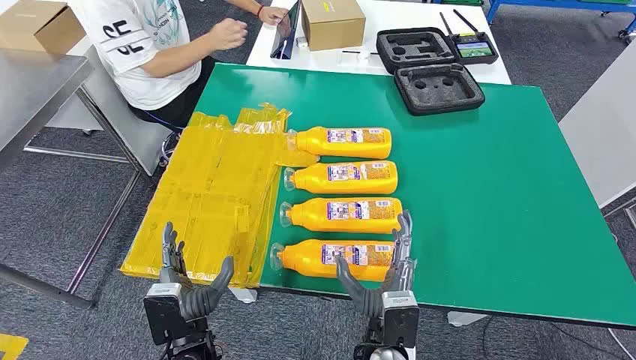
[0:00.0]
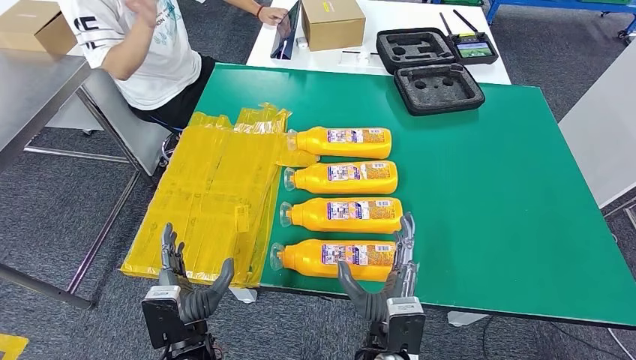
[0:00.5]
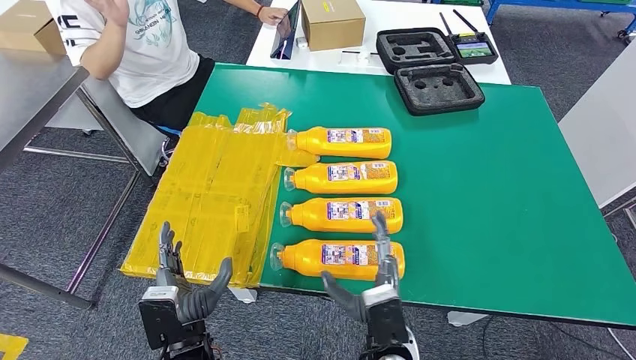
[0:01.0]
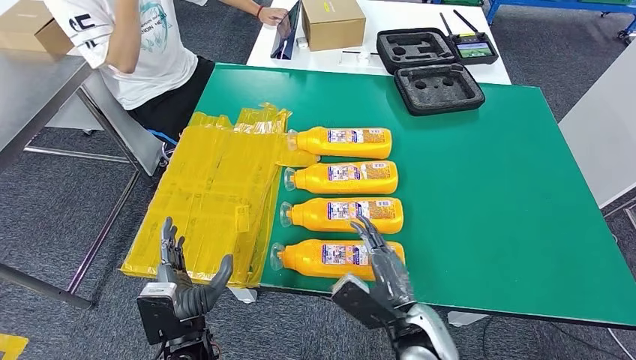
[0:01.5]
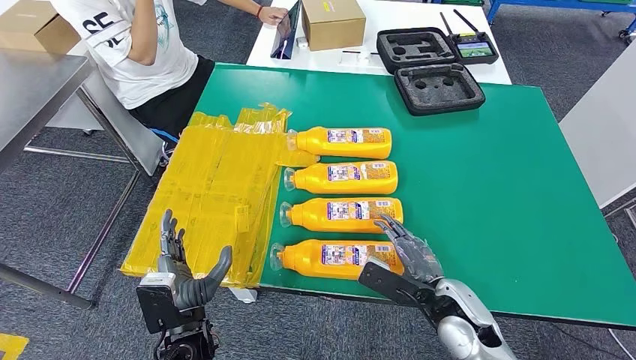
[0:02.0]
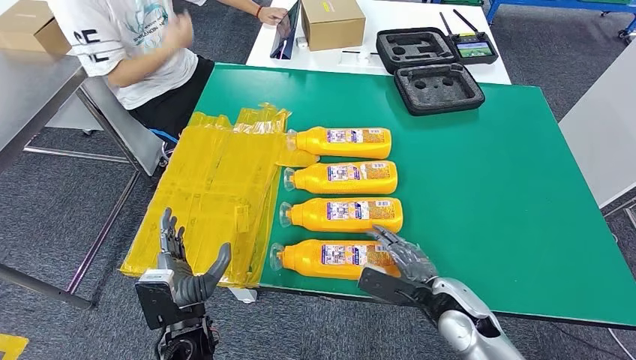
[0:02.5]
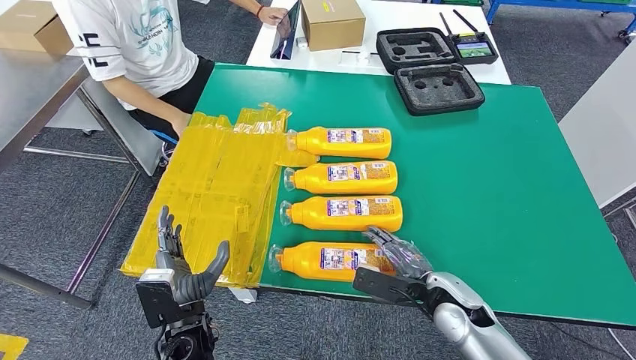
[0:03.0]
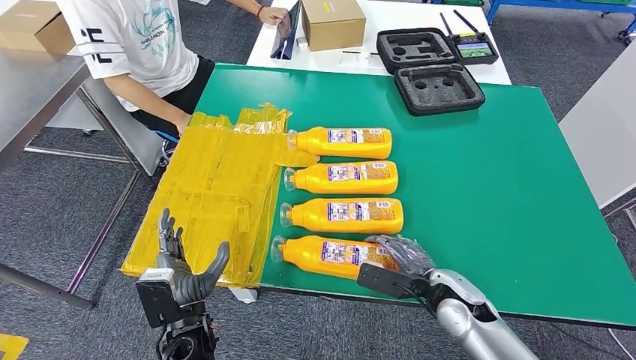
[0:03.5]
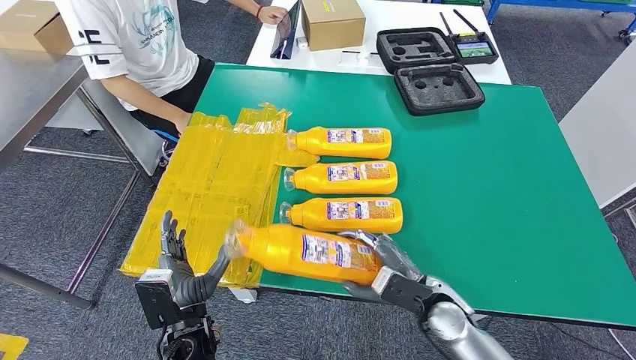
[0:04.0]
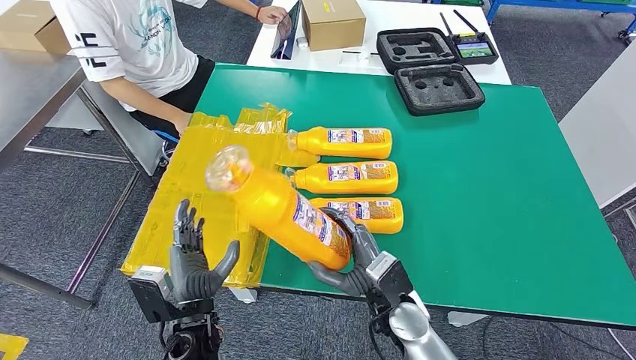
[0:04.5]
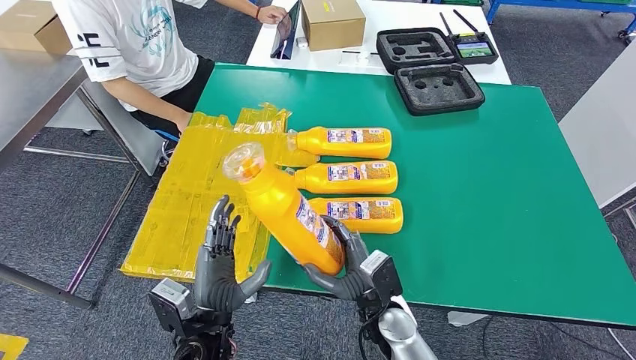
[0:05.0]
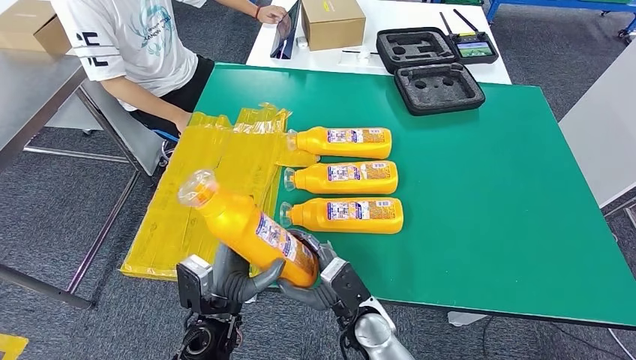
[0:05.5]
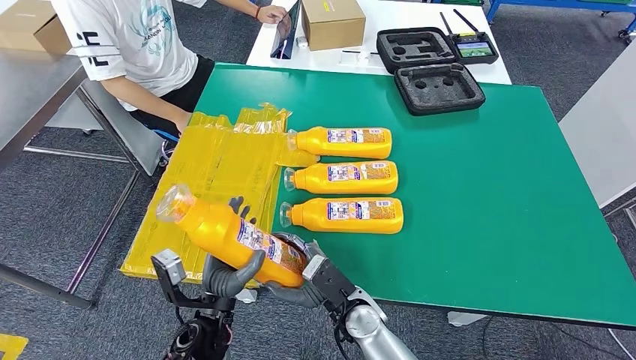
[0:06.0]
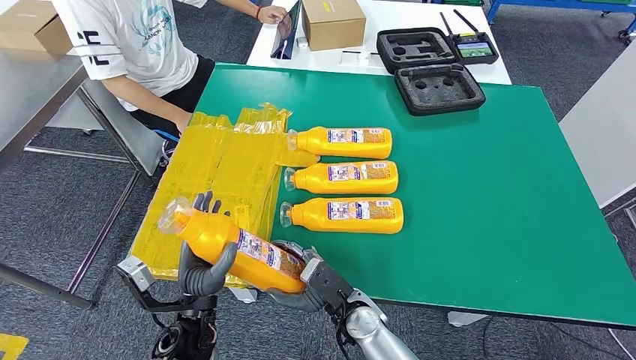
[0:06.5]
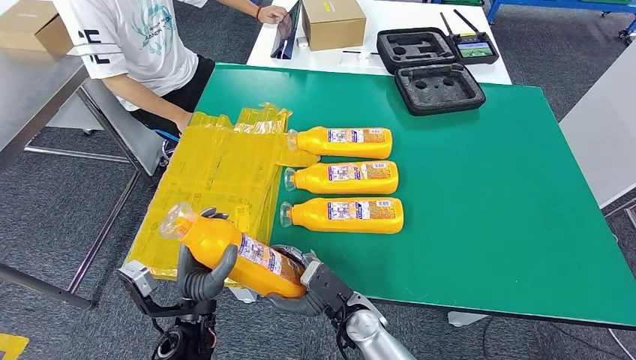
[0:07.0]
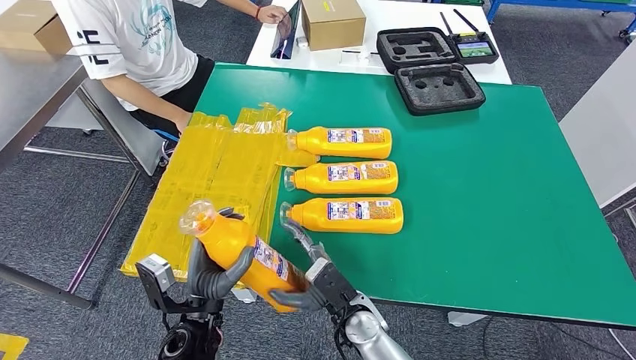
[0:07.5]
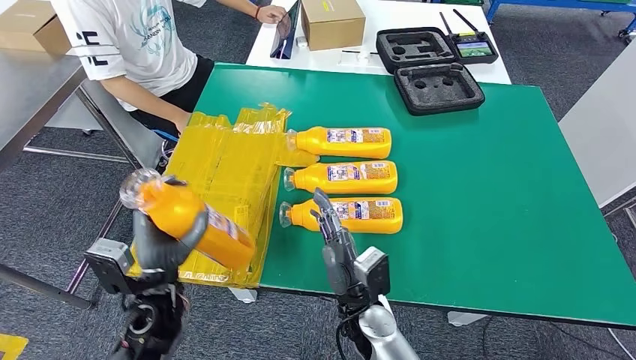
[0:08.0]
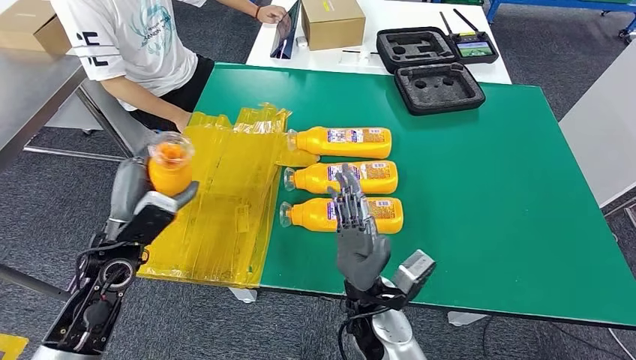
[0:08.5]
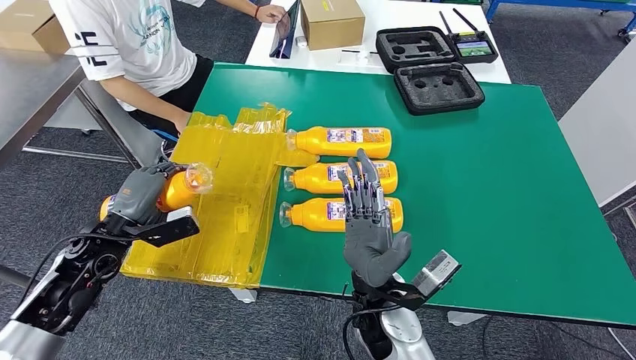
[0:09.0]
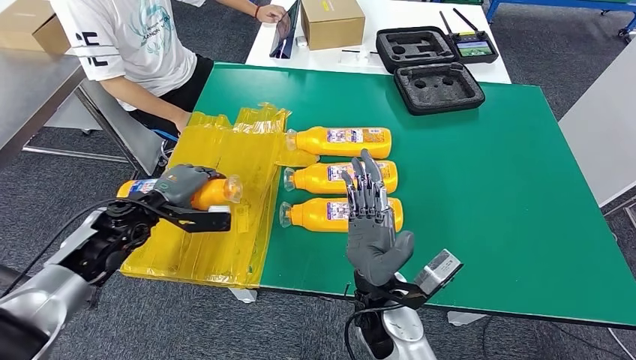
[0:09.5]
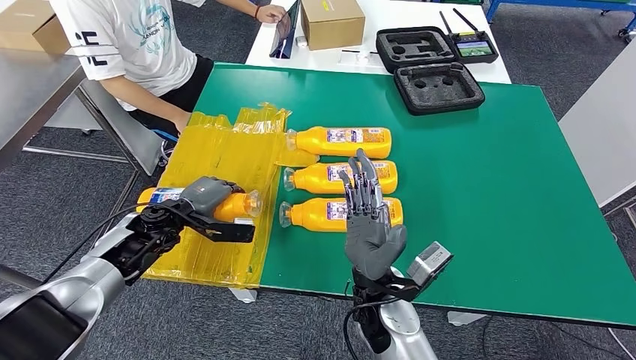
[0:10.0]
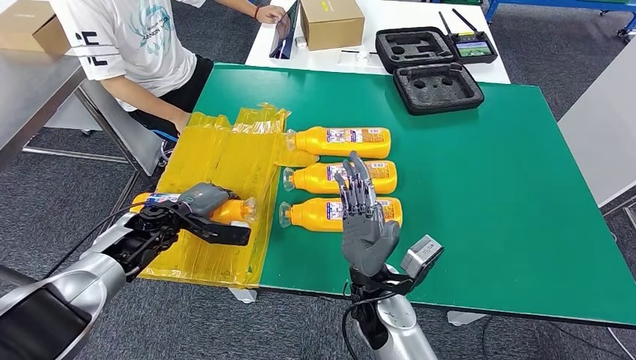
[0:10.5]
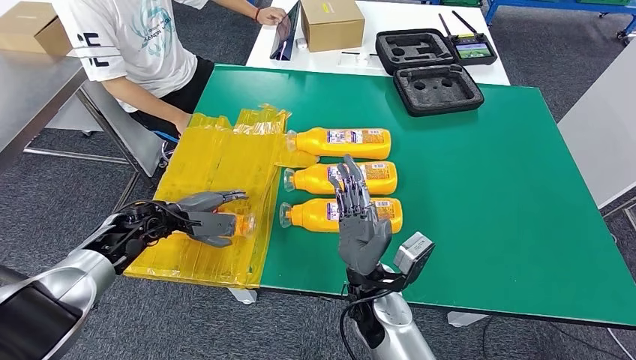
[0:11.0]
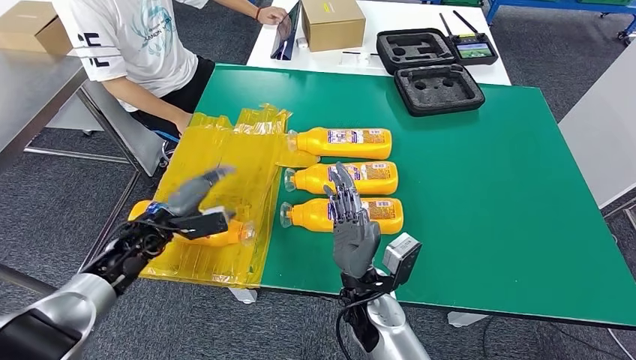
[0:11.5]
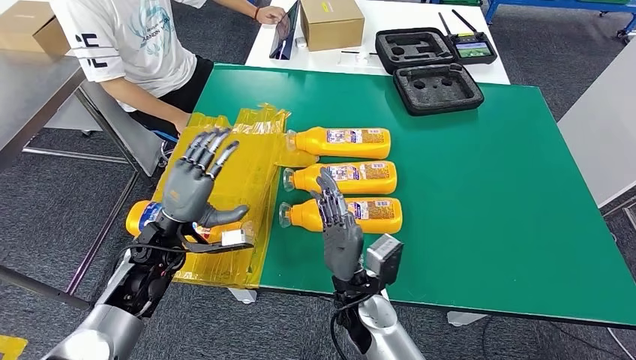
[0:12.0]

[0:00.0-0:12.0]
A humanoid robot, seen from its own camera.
Step, 0:00.0 to 0:05.0: Take the bottle from the table.
Step, 0:05.5 to 0:10.0: Flip the bottle to face forward.
0:04.0 to 0:06.0: The right hand goes roughly 15 cm to the left.
0:06.0 to 0:08.0: The left hand moves to the left, some 5 cm.
0:08.0 to 0:10.0: The left hand shifts roughly 15 cm forward. The right hand goes approximately 5 cm upward.
0:10.0 to 0:12.0: The left hand changes place by roughly 5 cm.

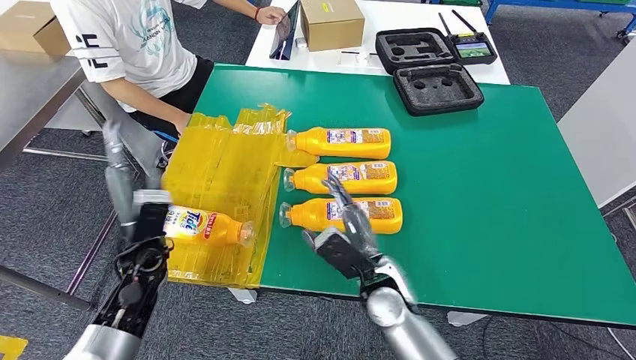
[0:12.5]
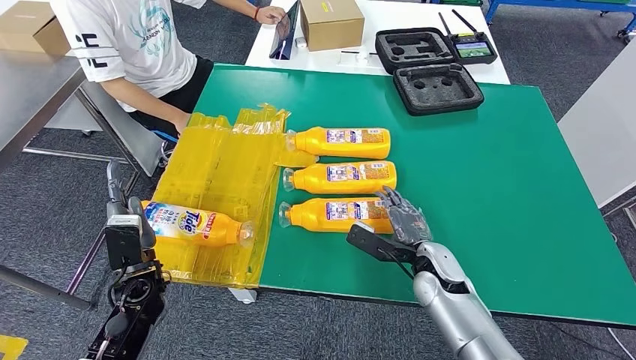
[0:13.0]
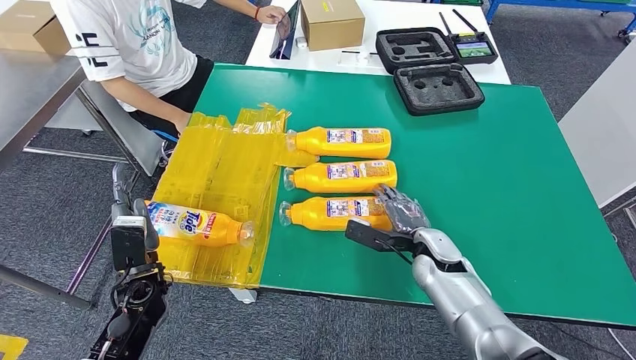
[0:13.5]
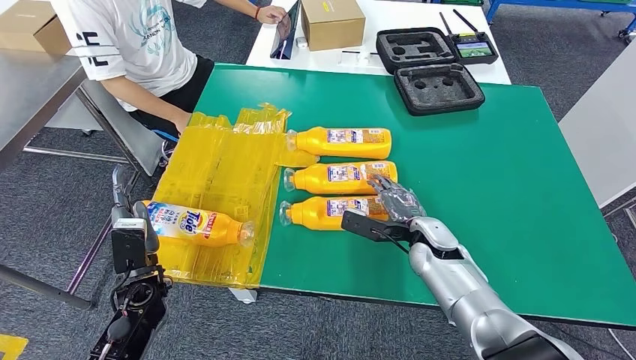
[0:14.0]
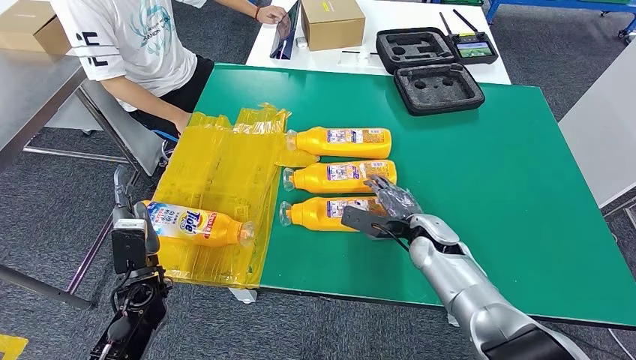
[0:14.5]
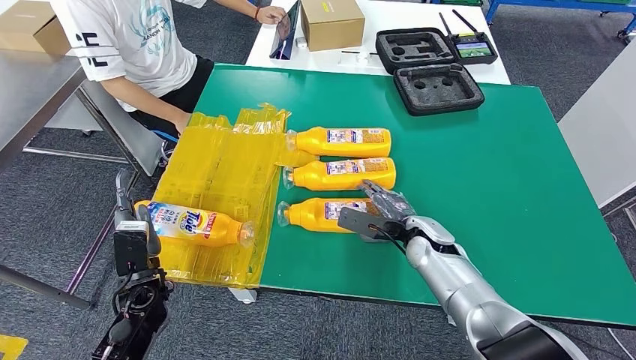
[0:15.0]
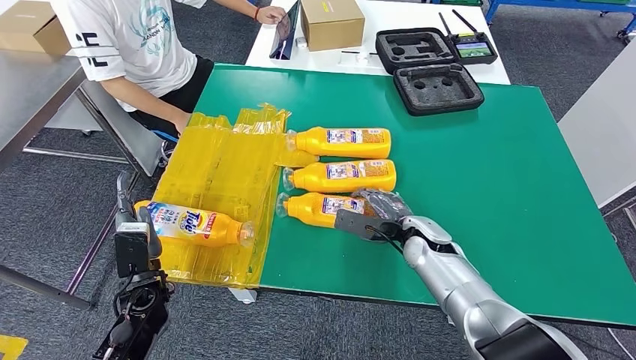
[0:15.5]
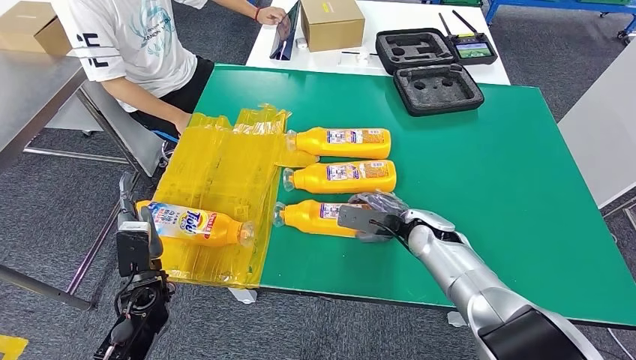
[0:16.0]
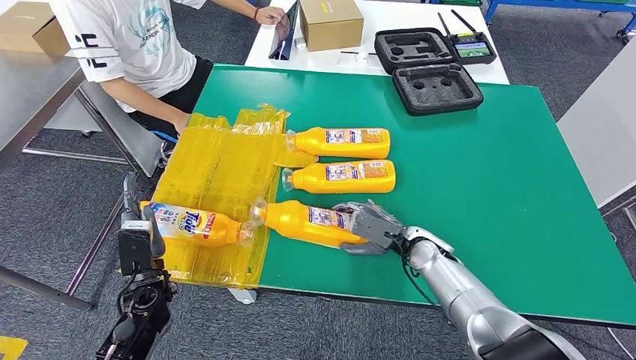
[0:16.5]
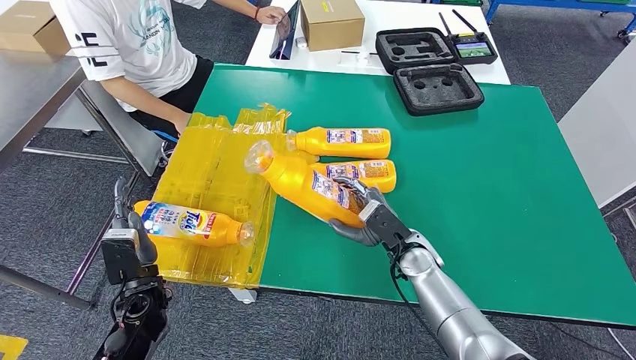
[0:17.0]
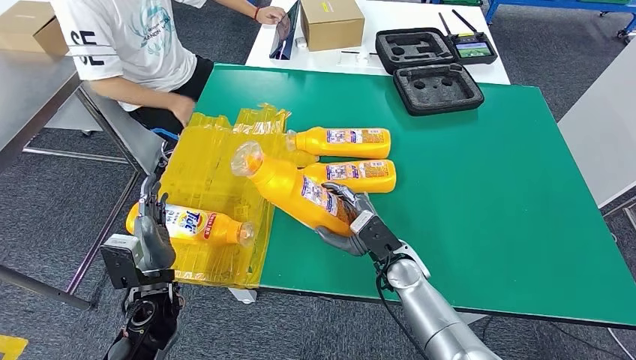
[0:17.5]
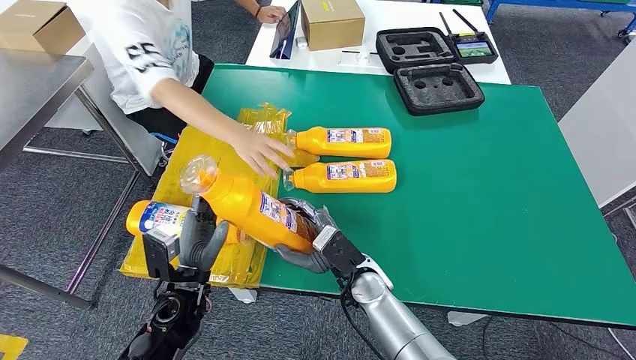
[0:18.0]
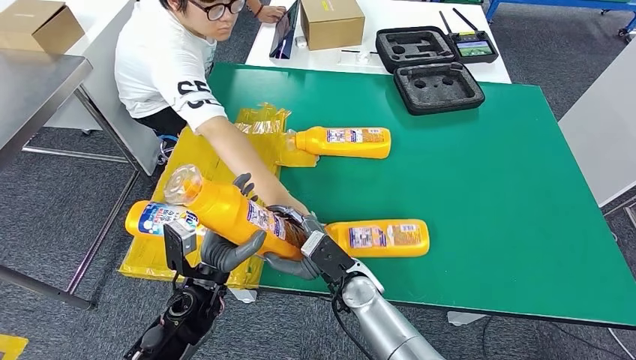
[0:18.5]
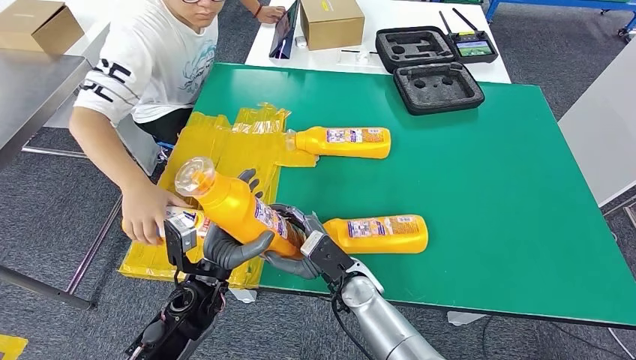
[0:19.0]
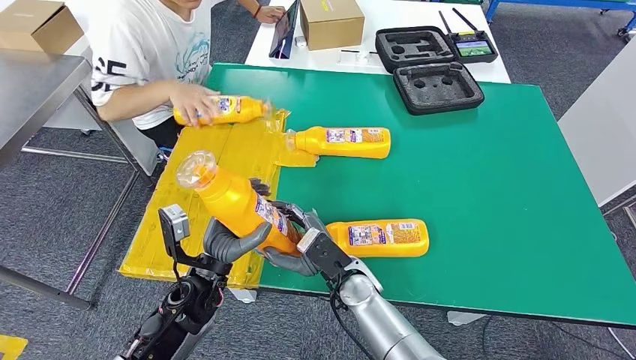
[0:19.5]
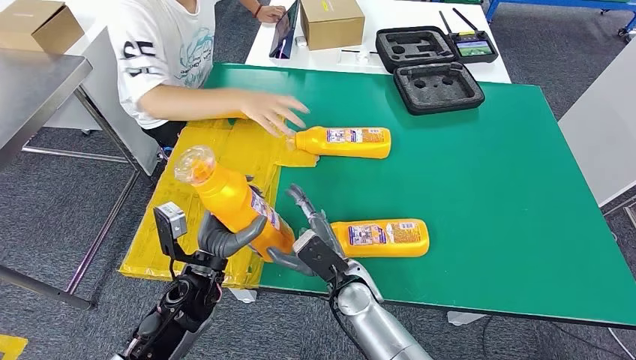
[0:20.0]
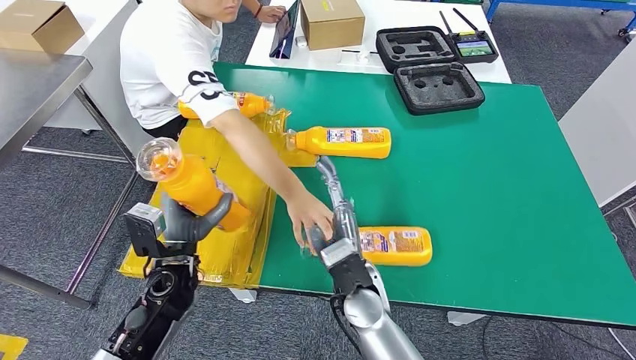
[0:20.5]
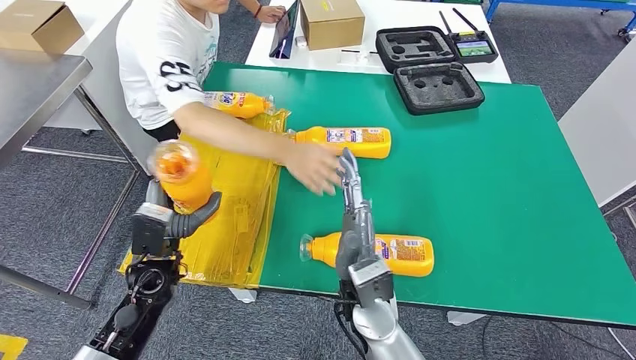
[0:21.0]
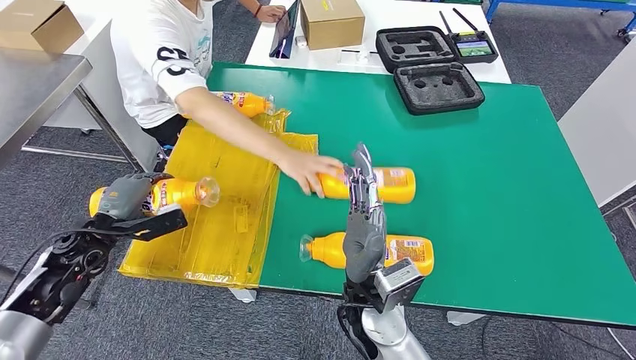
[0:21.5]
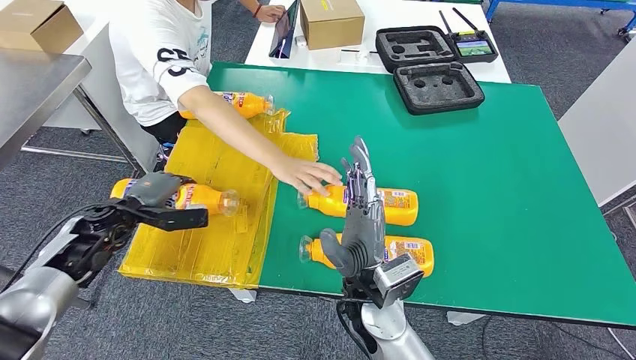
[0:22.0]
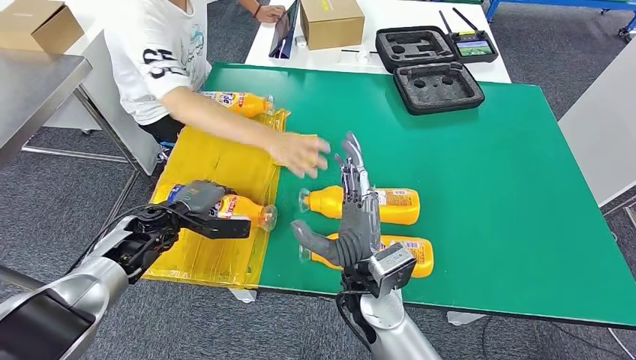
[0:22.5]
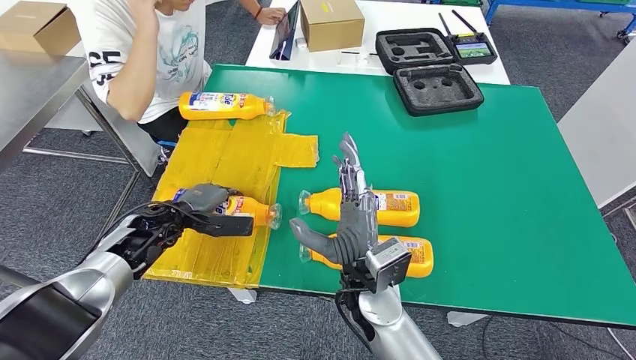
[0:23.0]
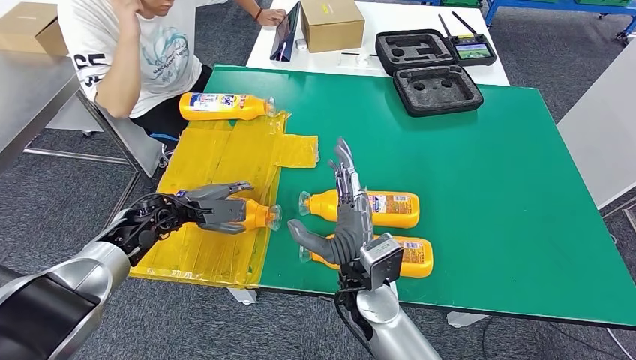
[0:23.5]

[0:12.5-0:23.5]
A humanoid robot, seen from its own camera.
Step, 0:12.5 to 0:17.0: Pick up the bottle from the table.
Step, 0:17.5 to 0:23.0: Flip the bottle to face forward.
0:12.5 to 0:14.5: The right hand is displaced forward and to the right by some 15 cm. The left hand moves downward, about 5 cm.
0:14.5 to 0:16.0: The hands move only a little.
